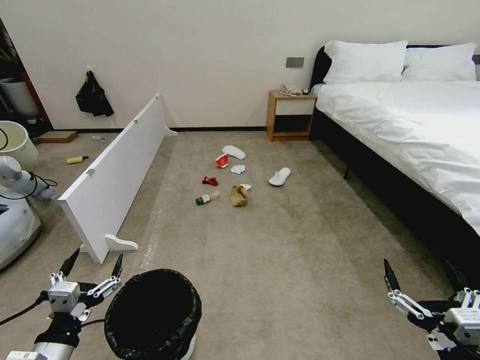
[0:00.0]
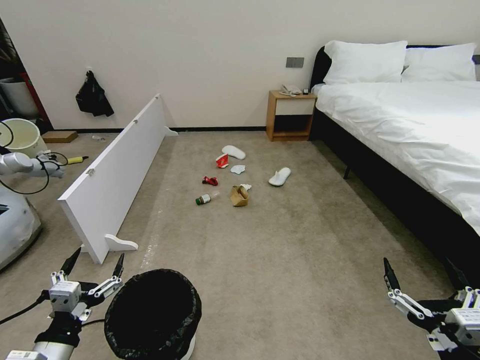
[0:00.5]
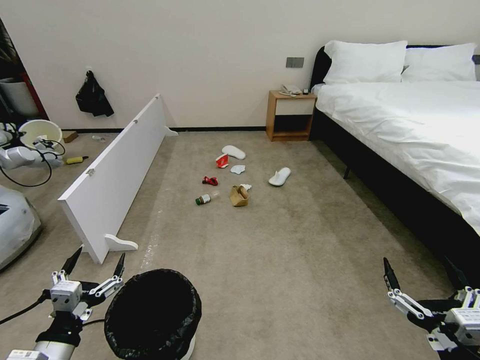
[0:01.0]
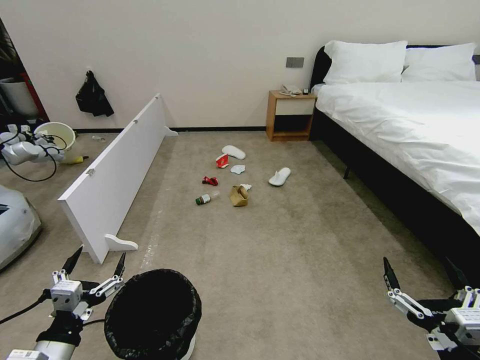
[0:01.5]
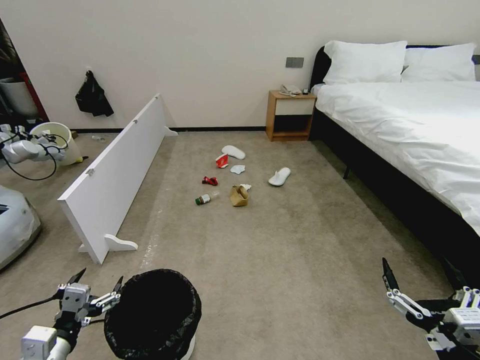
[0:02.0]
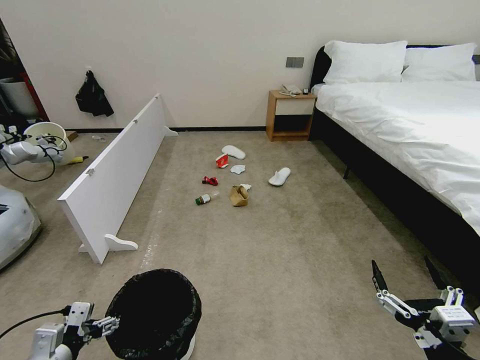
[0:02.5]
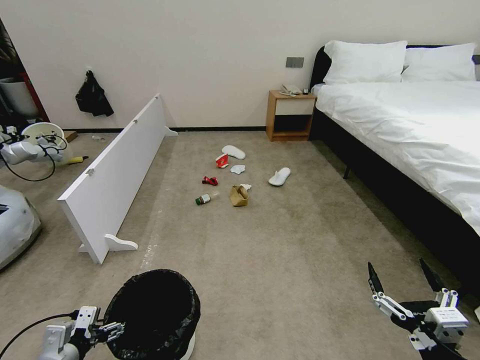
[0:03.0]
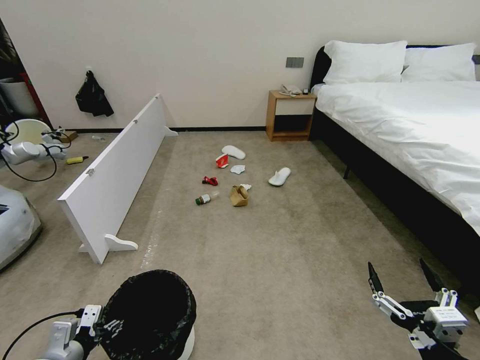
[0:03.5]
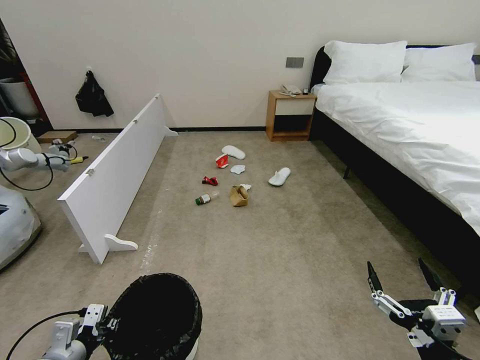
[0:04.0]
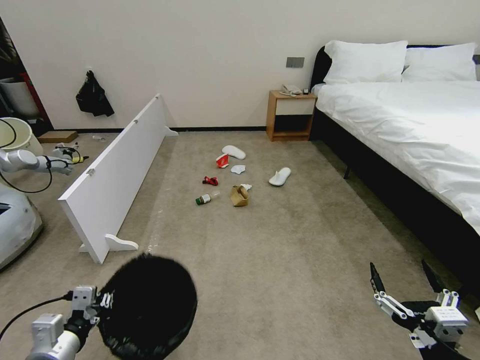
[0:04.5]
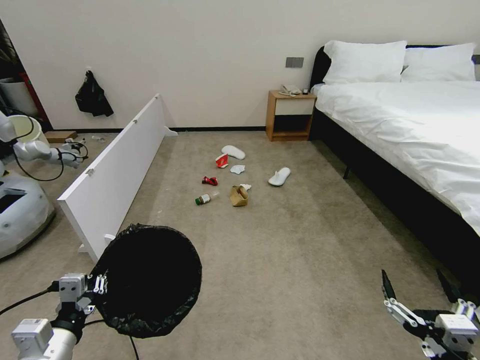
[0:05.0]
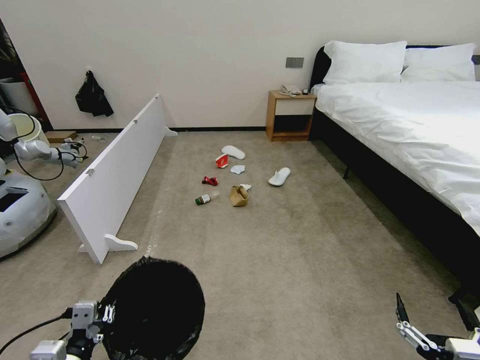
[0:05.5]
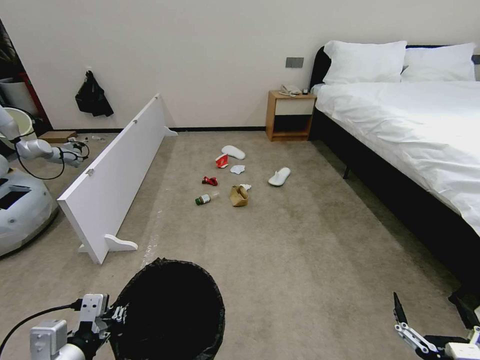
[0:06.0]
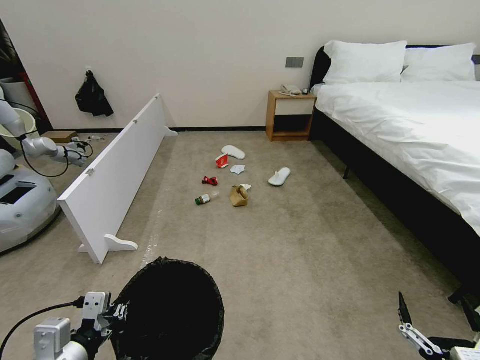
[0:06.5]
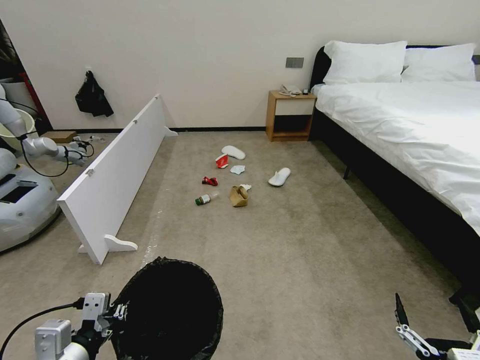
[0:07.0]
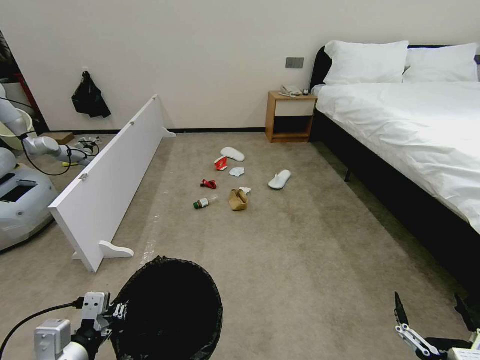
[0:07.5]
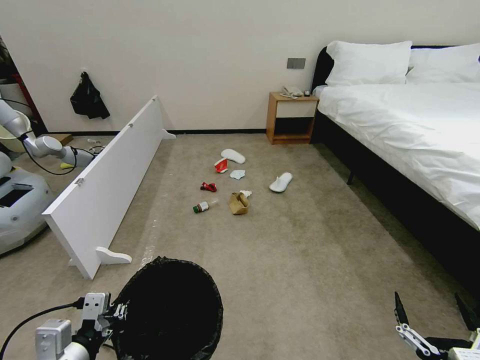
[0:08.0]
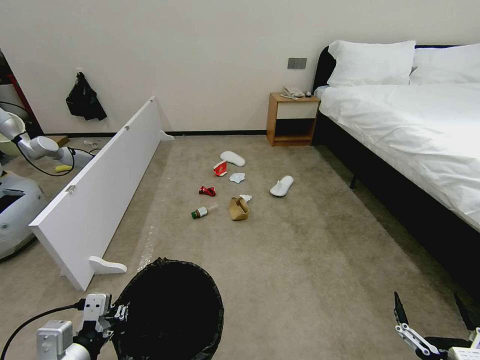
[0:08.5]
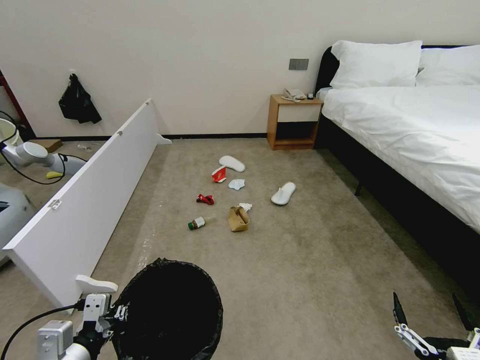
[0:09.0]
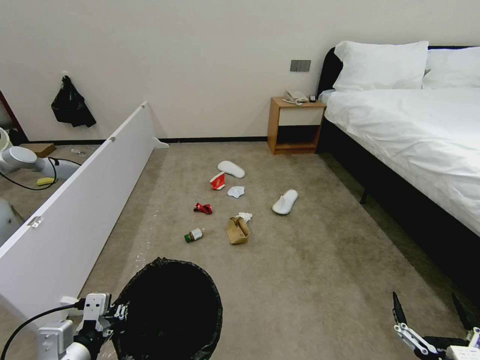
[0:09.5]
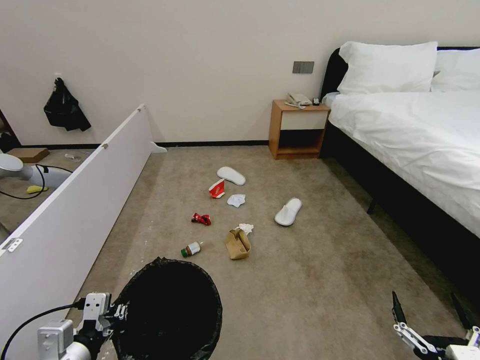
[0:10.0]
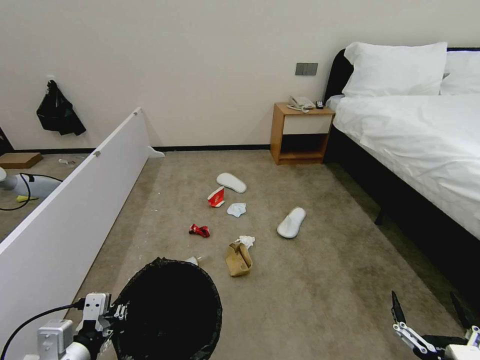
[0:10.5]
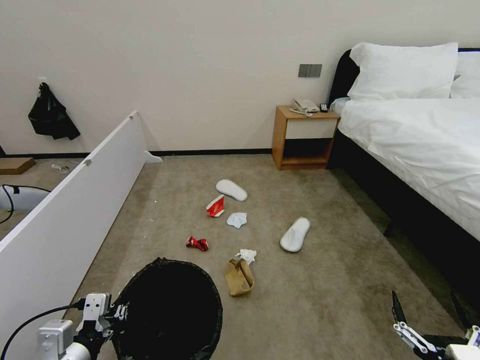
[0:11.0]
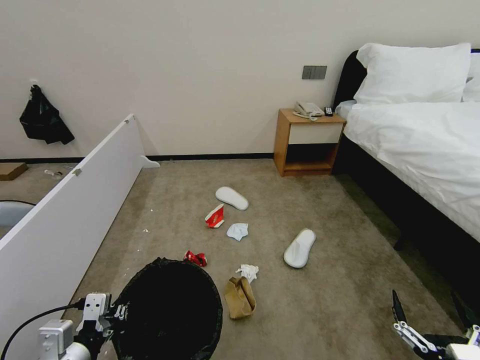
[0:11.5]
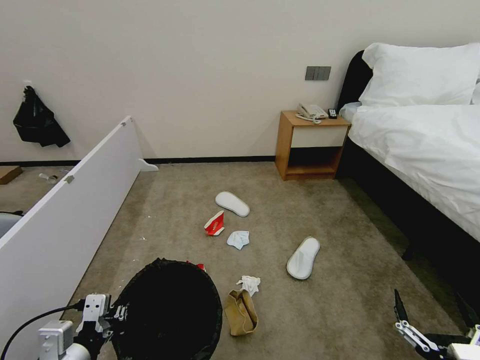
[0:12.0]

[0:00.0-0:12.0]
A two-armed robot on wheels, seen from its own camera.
Task of the whole recording: Pick up the trash bin, then pick up the garbage from the floor and place it into the trash bin.
0:02.0 to 0:04.0: The left gripper moves roughly 5 cm, and closes its fingers.
0:04.0 to 0:06.0: The right gripper changes place by about 5 cm. The left gripper travels upward, to the right and backward by some 15 cm.
0:06.0 to 0:08.0: Neither gripper changes place.

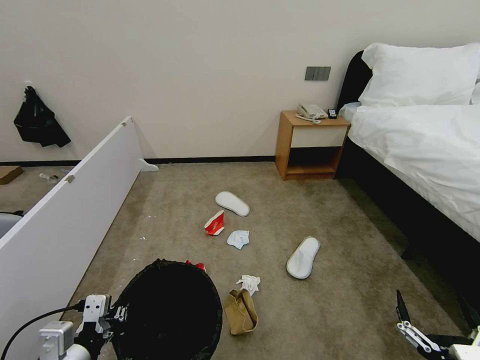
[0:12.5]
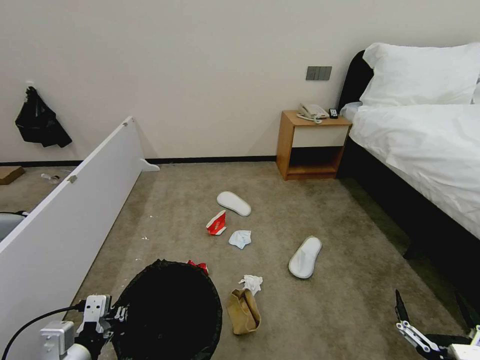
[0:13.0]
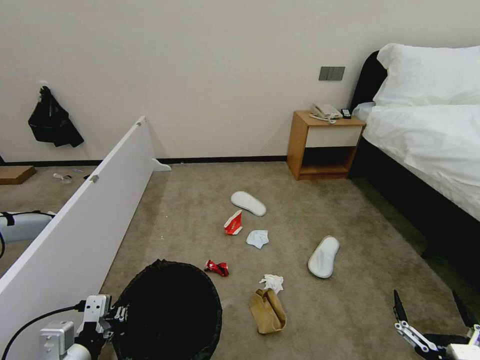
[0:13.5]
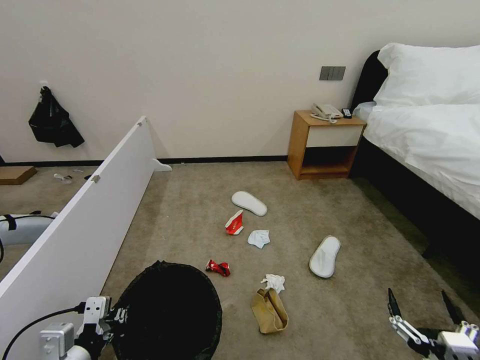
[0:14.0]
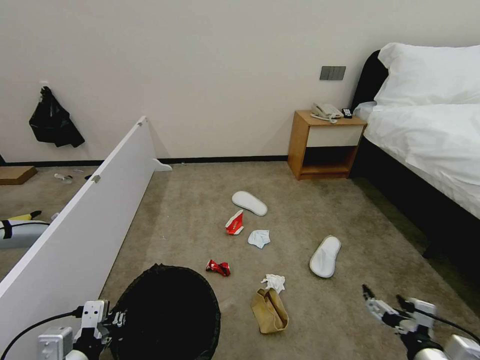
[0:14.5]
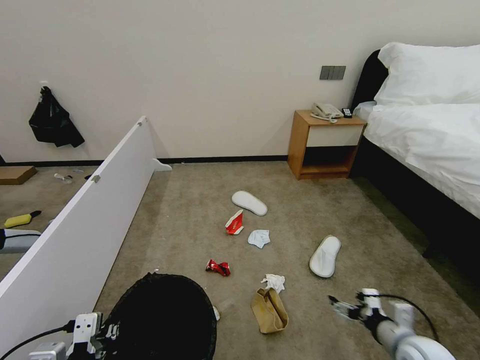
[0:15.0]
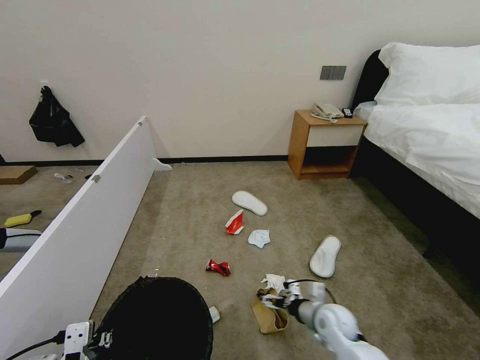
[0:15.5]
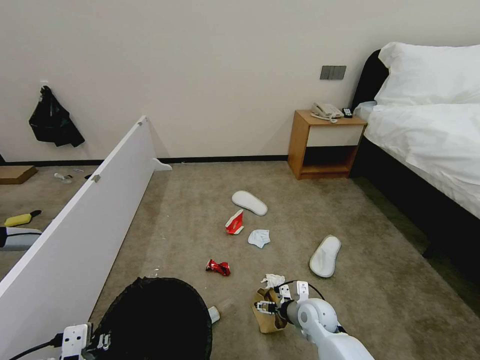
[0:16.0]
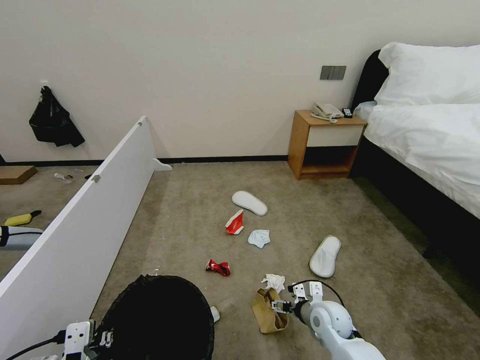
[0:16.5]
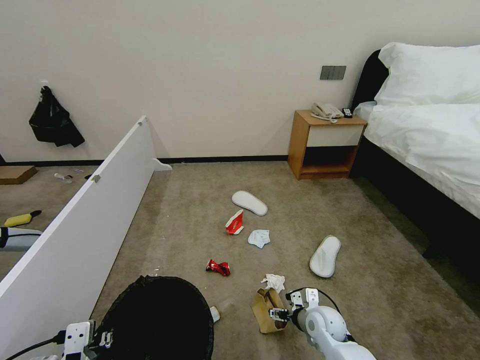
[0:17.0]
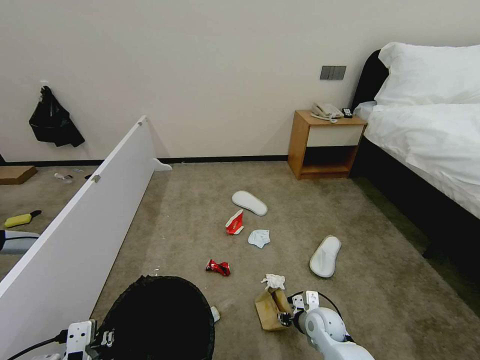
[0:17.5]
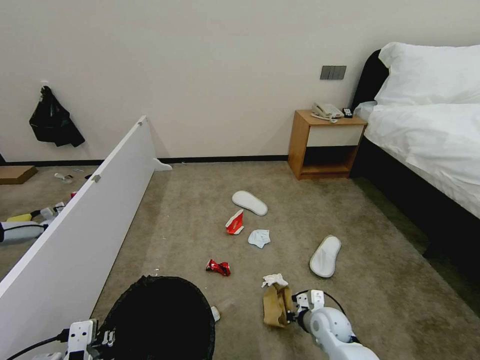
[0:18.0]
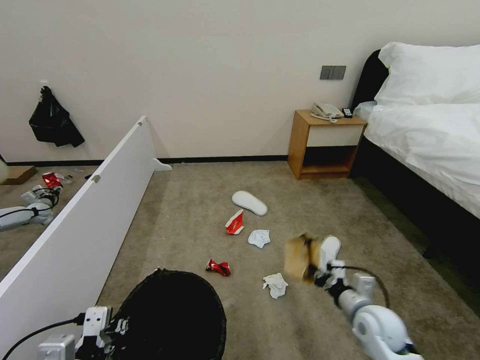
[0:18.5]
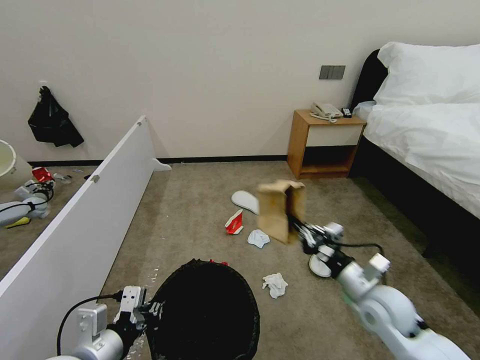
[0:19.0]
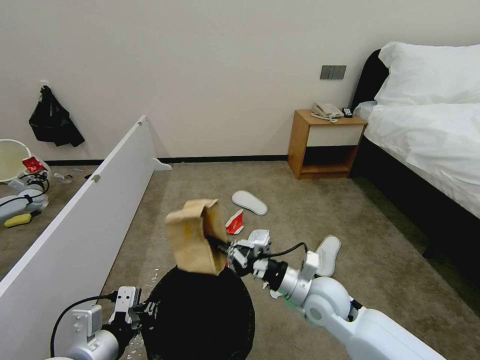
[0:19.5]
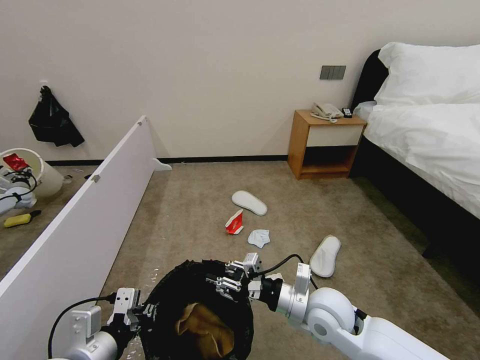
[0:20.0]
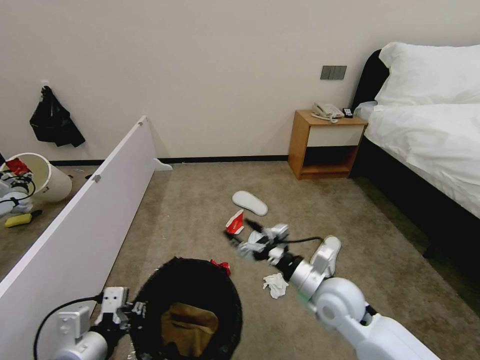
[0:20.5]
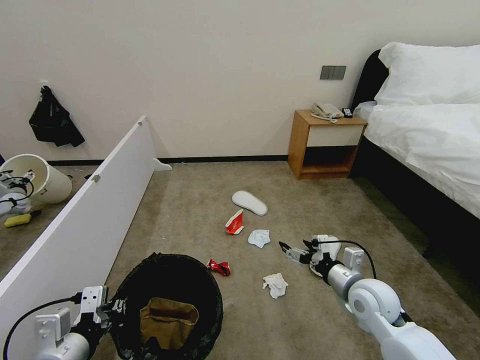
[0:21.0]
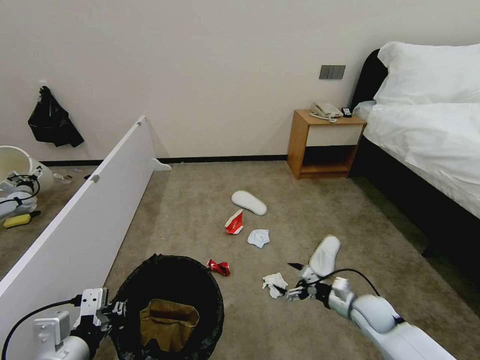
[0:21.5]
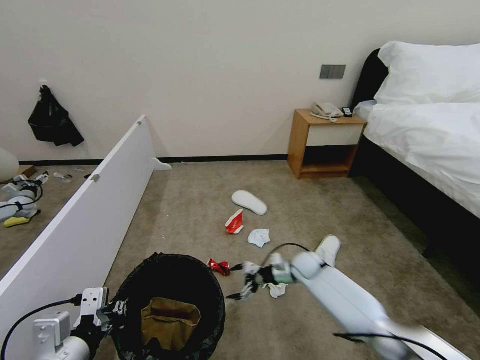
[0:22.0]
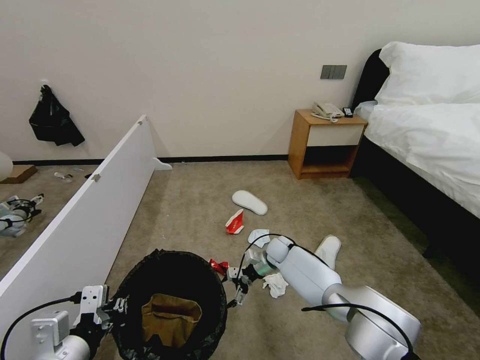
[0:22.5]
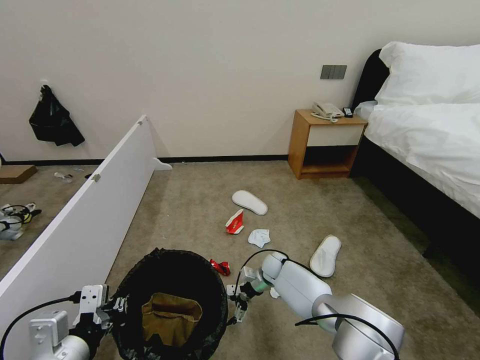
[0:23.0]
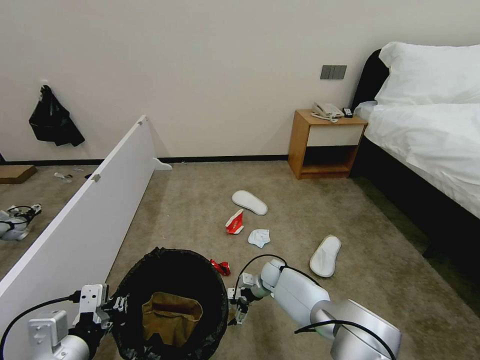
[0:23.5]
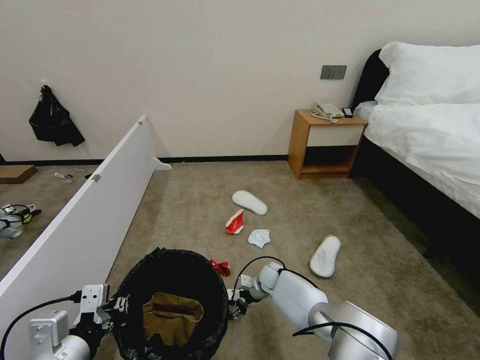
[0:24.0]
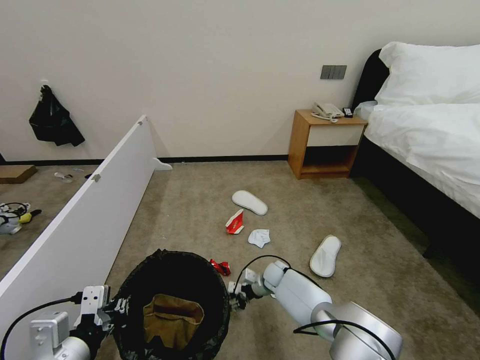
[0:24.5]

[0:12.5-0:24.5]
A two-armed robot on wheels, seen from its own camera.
Task of the whole recording: Pick up the trash bin, then pick up the garbage from the floor and place it into the trash bin.
0:12.5 to 0:14.5: The right gripper is displaced forward by roughly 10 cm.
0:14.5 to 0:16.5: The right gripper moves forward, to the left and downward, about 25 cm; the left gripper ends up roughly 5 cm from where it was.
0:16.5 to 0:18.5: The right gripper heads to the right, upward and backward, covering some 15 cm, and closes.
0:18.5 to 0:20.5: The right gripper goes roughly 15 cm to the left and upward, and opens.
0:20.5 to 0:22.5: The right gripper is displaced forward and downward by approximately 30 cm.
0:22.5 to 0:24.5: The right gripper travels downward by approximately 10 cm, and closes.

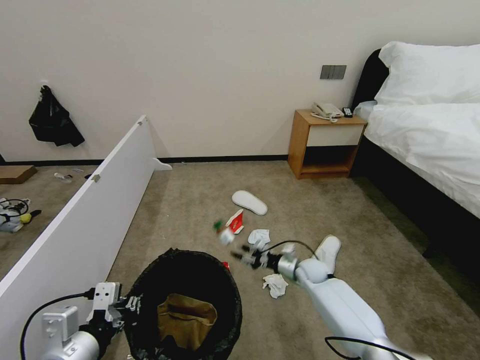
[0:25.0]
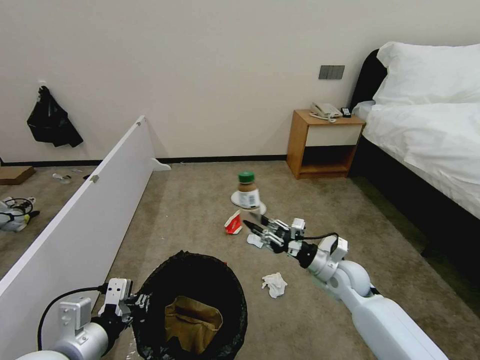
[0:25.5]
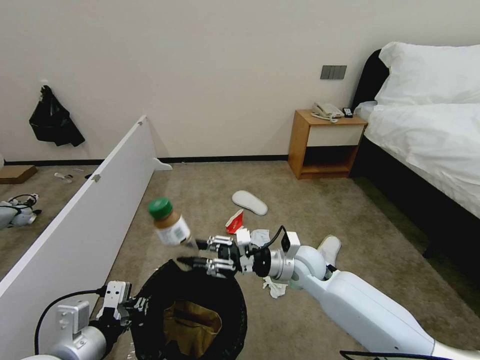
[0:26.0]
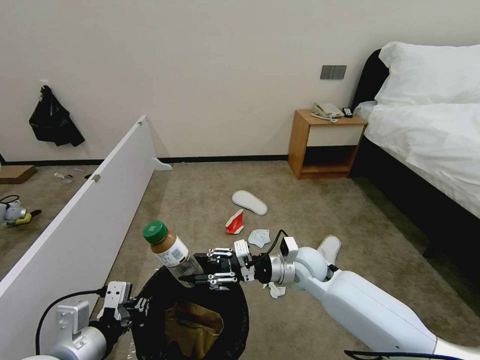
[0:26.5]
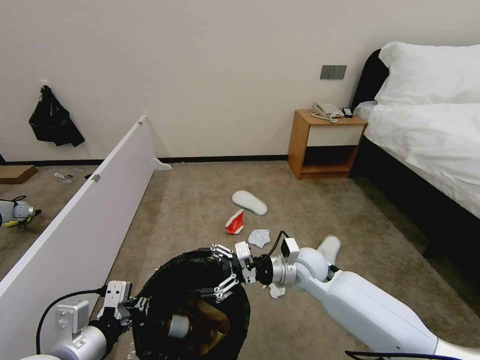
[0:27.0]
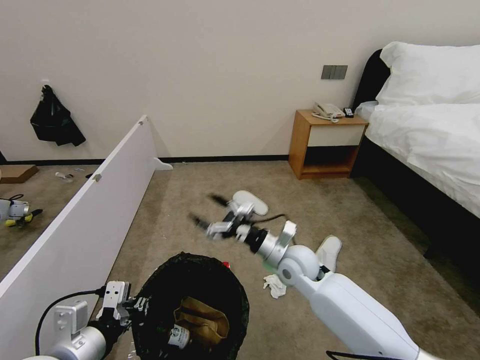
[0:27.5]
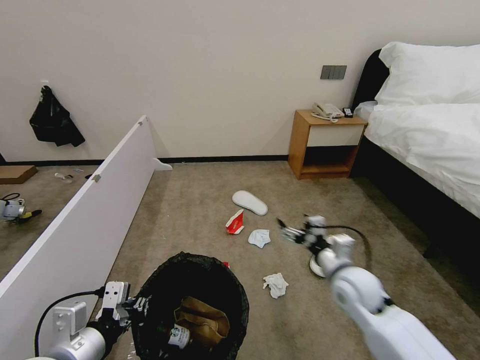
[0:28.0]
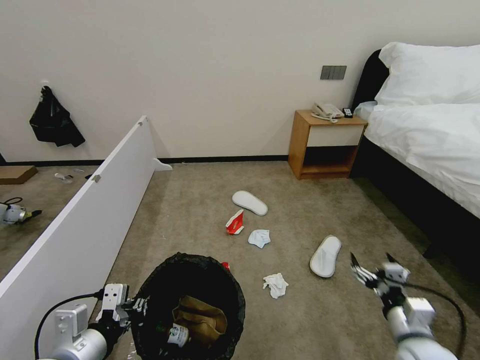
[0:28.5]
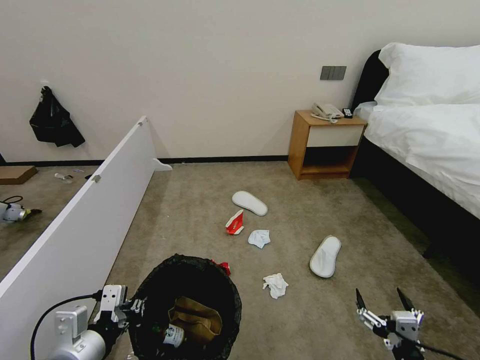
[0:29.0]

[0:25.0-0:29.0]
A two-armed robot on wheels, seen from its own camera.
Task of the whole recording: Pick up the trash bin, then pick up the garbage from the floor and place it into the trash bin.
0:25.0 to 0:27.0: The right gripper shifts roughly 20 cm upward, backward and to the left, and opens.
0:27.0 to 0:29.0: The right gripper heads backward and to the right, covering about 35 cm.
